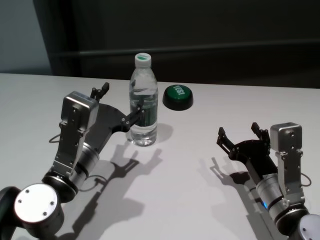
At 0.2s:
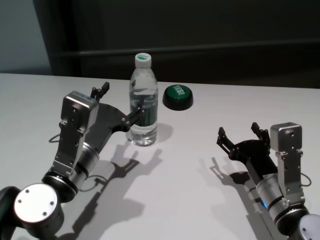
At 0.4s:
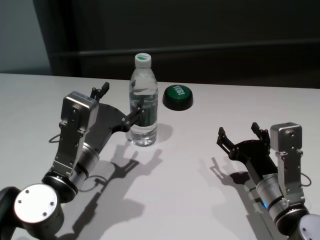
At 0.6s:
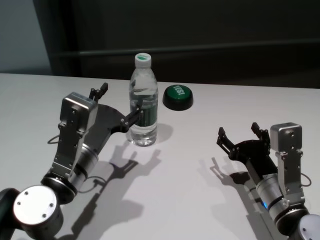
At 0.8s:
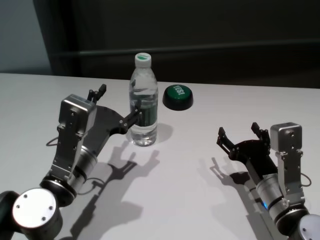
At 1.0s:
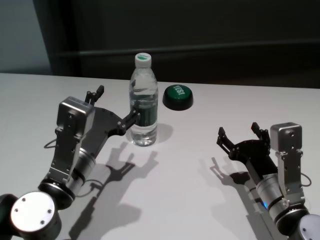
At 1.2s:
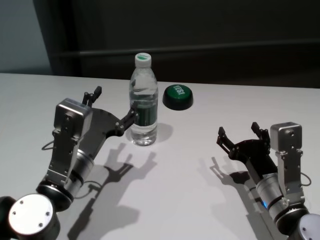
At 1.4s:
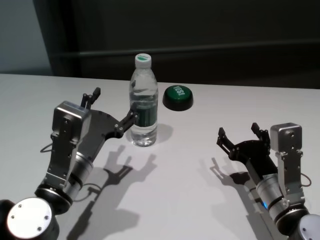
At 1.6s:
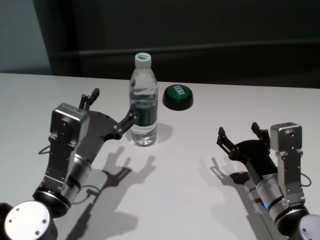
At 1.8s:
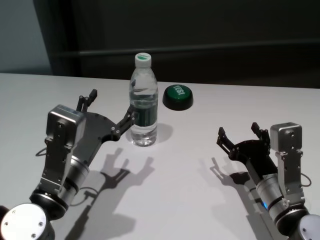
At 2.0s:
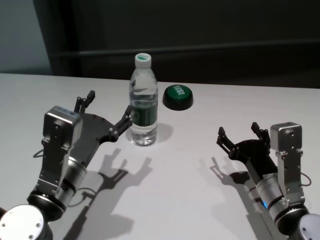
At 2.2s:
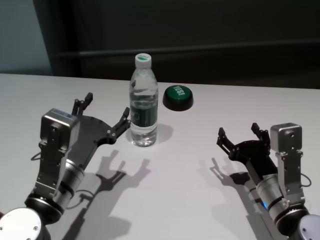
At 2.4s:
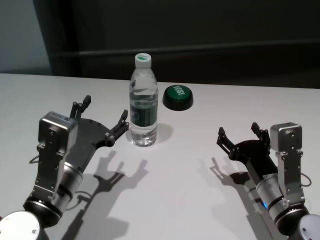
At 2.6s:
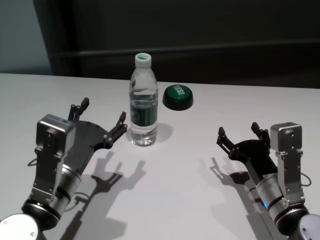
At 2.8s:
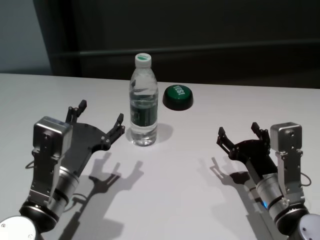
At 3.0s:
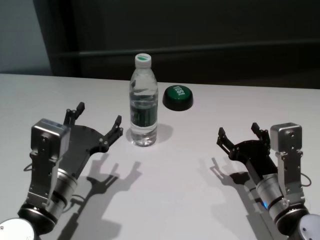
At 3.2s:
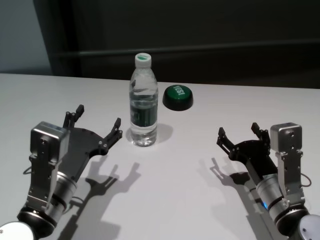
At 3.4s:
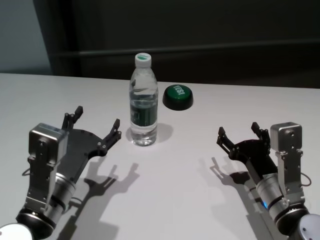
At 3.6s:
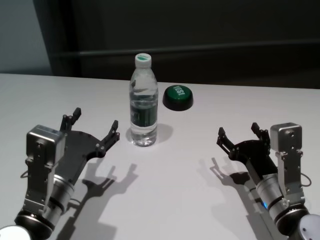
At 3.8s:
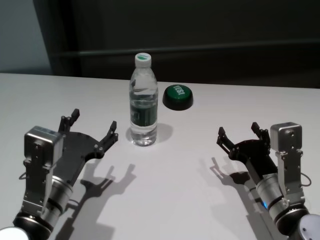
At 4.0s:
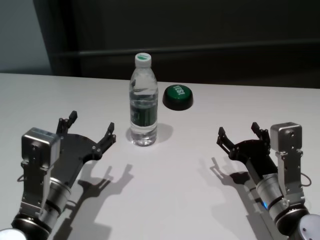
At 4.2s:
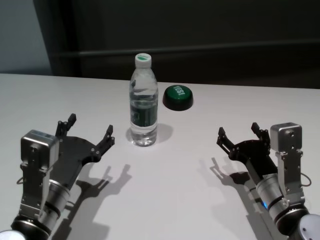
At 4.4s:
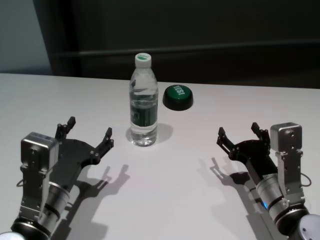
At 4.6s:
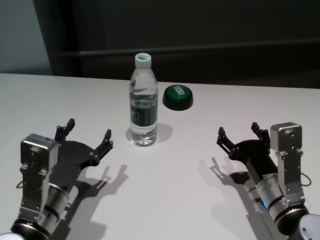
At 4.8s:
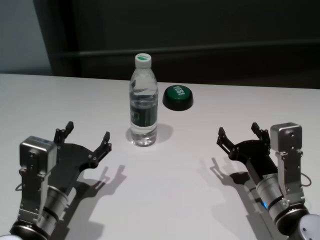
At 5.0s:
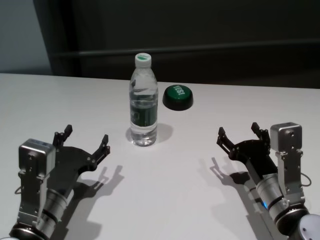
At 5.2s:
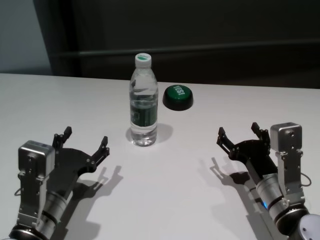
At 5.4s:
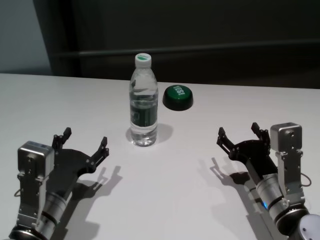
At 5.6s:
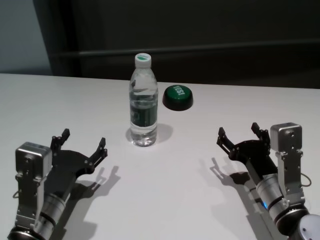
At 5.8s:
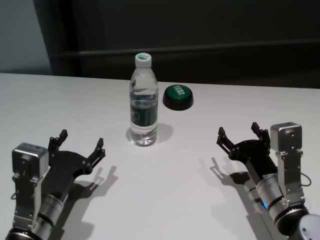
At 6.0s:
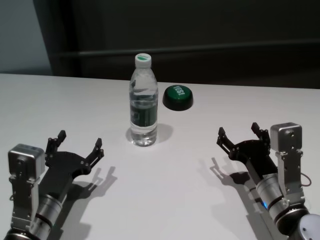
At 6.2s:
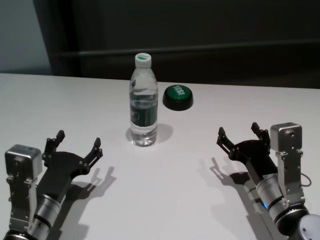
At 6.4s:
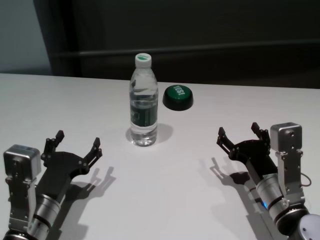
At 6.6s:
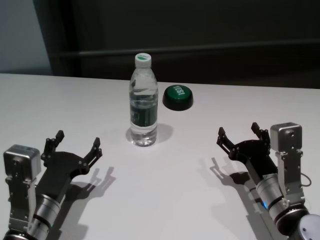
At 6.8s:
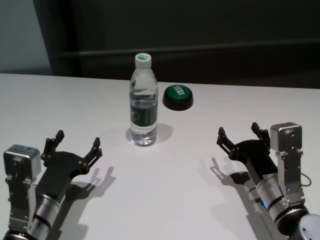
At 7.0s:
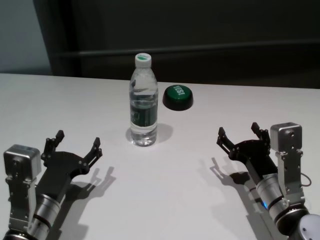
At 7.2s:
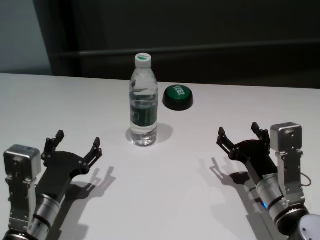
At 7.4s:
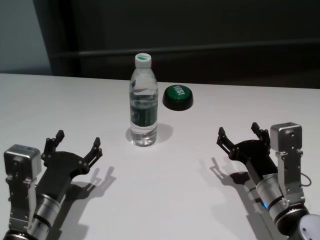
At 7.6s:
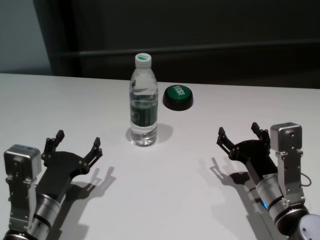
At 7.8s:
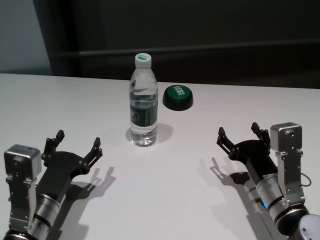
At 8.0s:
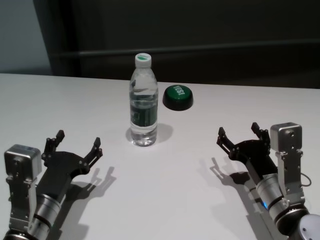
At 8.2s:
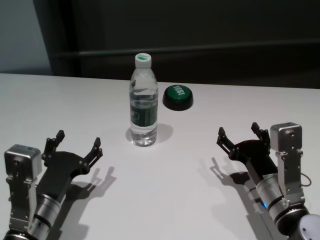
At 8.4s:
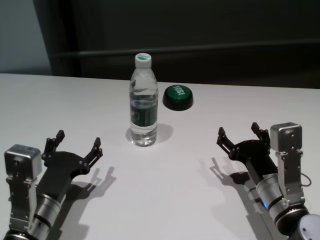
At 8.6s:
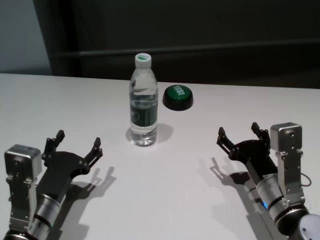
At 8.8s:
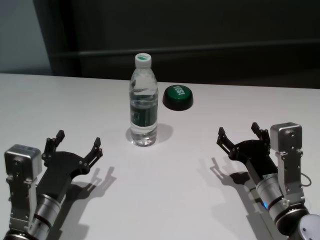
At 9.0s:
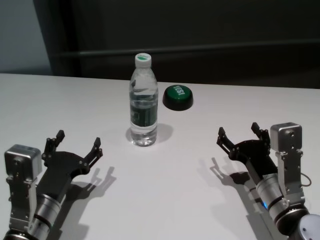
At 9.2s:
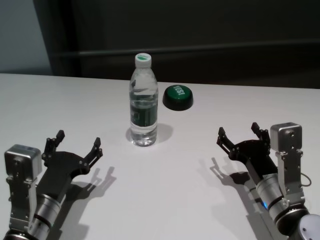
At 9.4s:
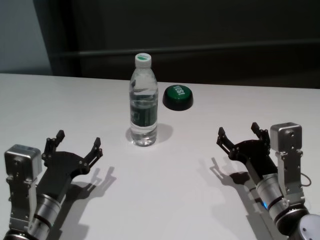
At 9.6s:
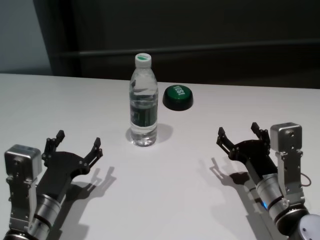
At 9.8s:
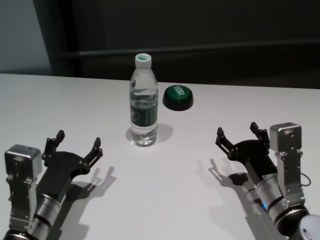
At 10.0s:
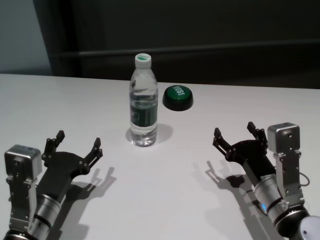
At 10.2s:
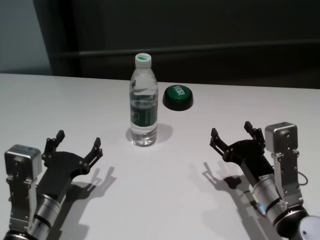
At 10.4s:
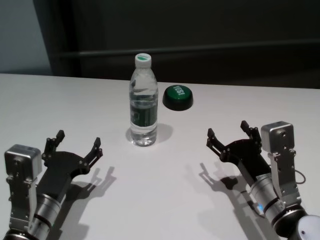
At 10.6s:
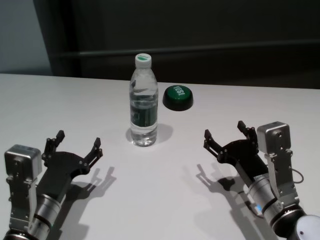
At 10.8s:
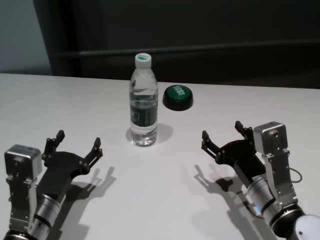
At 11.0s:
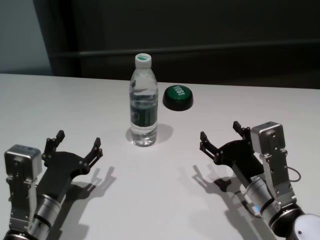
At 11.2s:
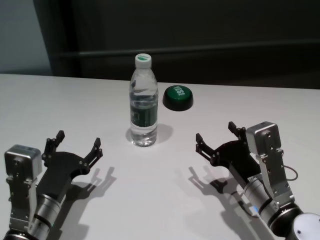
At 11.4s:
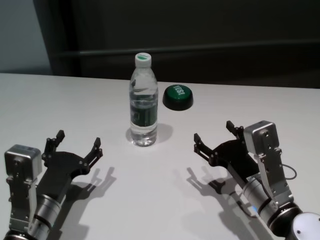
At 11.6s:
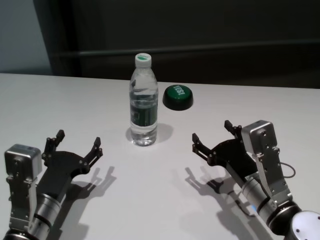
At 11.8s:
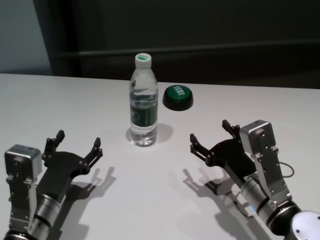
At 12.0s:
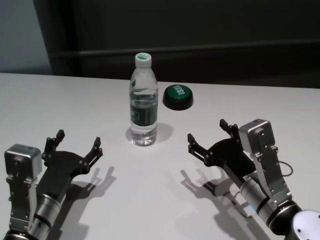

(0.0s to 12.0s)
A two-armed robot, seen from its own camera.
Task of the whole recording: return to a safe position after touching an obstacle with your arm on the white table.
Step, 0.0s - 2.2s: Touch the bottle with left gripper.

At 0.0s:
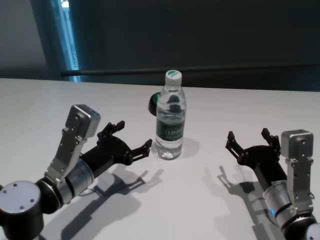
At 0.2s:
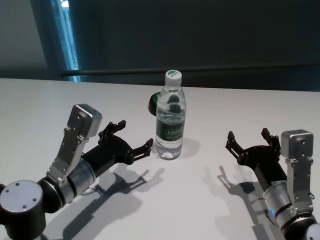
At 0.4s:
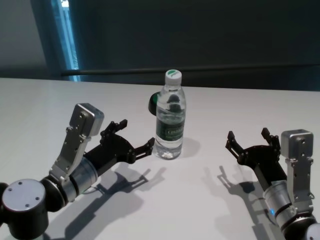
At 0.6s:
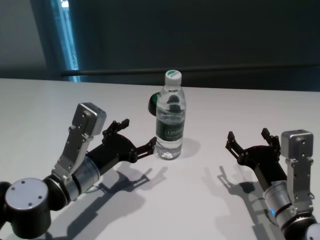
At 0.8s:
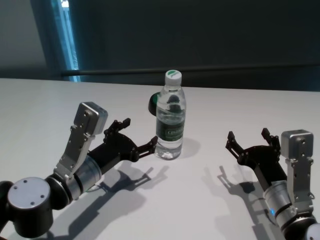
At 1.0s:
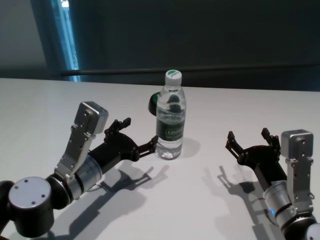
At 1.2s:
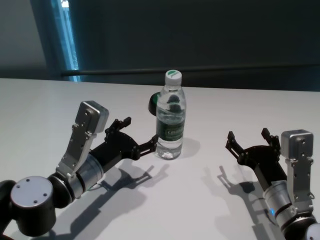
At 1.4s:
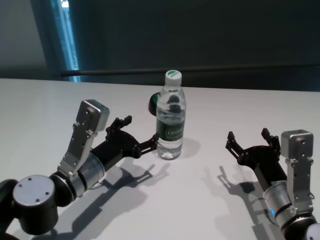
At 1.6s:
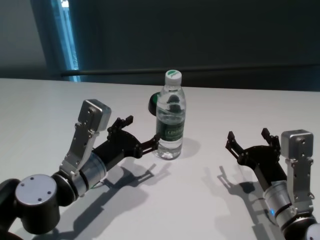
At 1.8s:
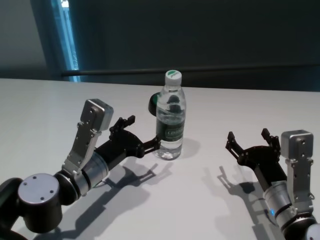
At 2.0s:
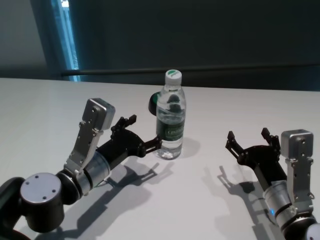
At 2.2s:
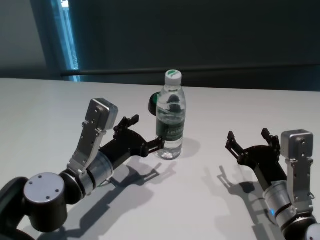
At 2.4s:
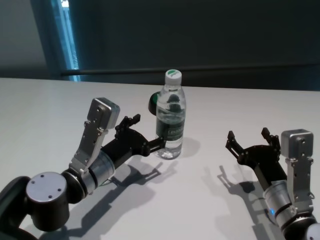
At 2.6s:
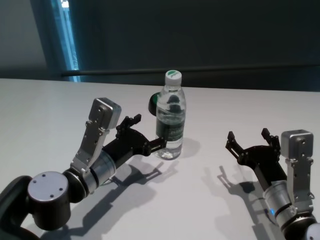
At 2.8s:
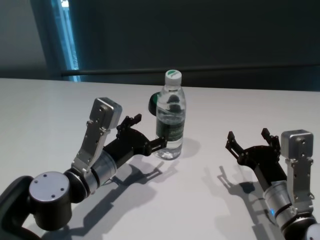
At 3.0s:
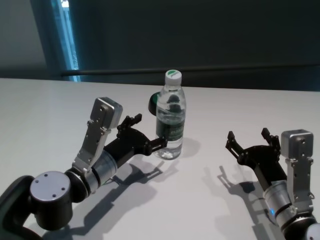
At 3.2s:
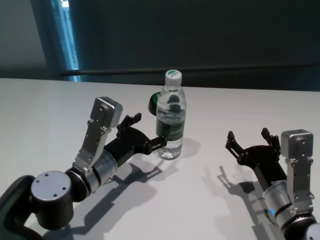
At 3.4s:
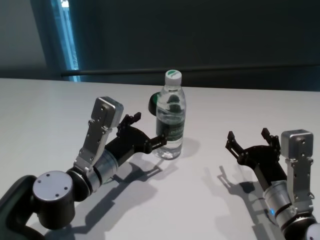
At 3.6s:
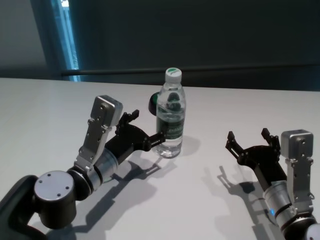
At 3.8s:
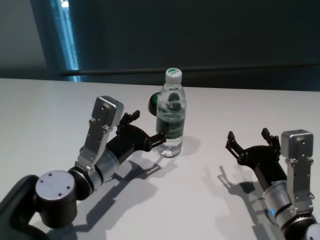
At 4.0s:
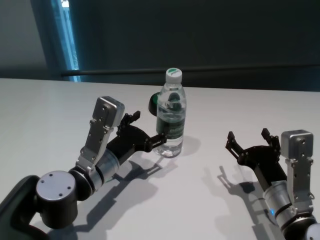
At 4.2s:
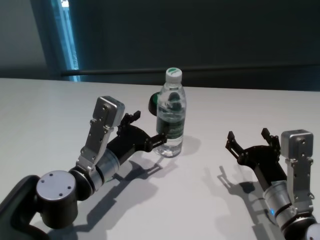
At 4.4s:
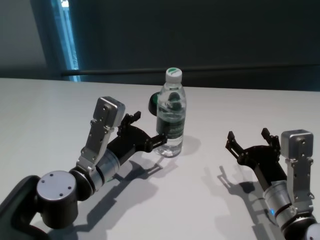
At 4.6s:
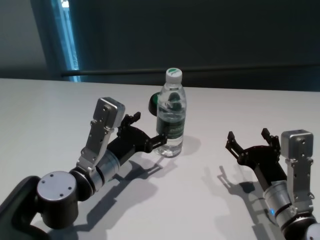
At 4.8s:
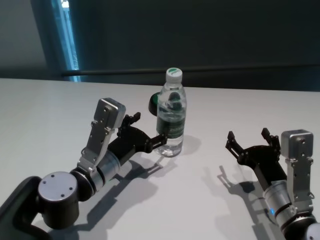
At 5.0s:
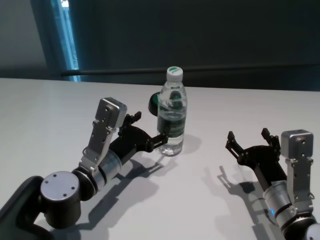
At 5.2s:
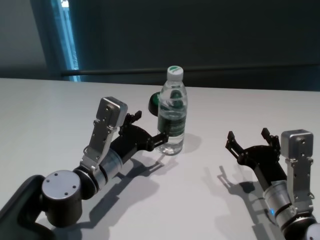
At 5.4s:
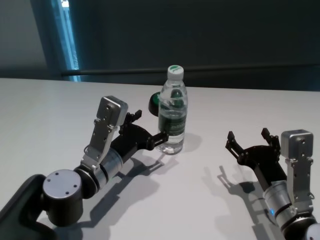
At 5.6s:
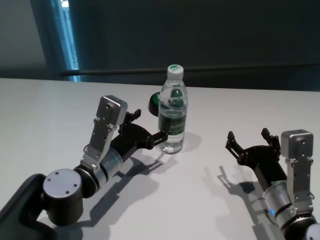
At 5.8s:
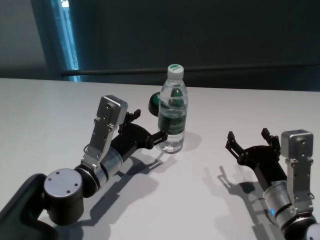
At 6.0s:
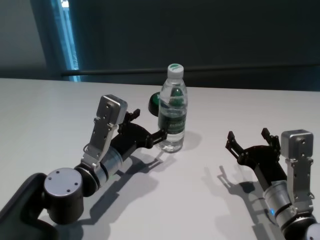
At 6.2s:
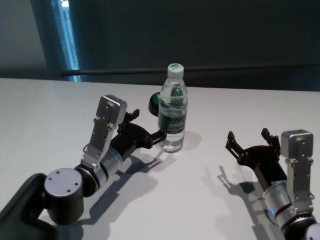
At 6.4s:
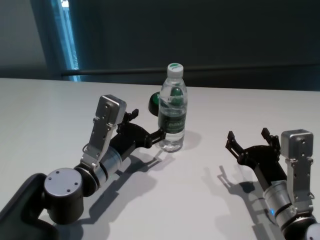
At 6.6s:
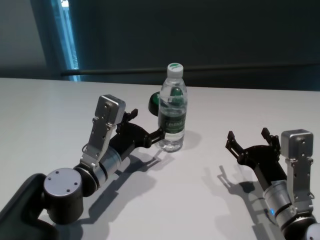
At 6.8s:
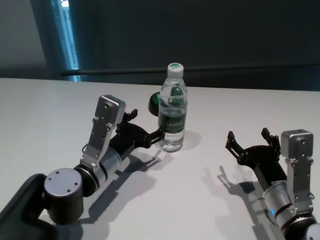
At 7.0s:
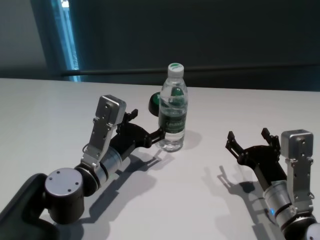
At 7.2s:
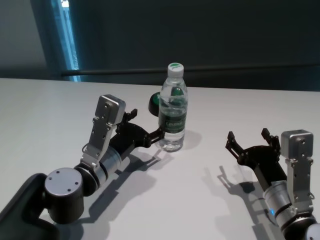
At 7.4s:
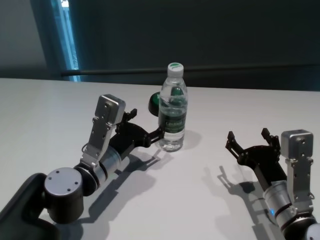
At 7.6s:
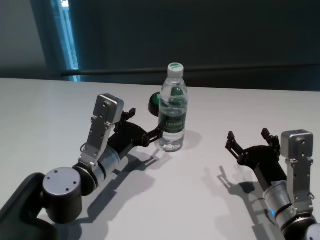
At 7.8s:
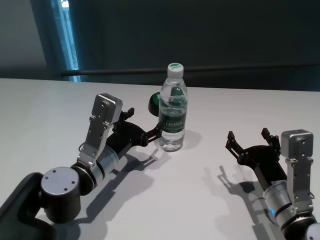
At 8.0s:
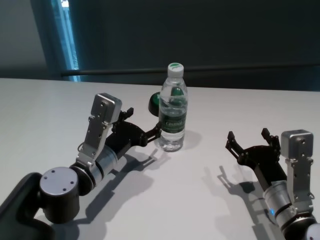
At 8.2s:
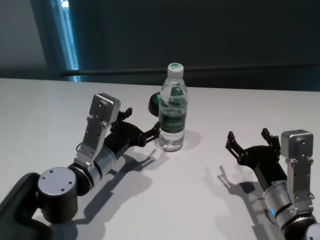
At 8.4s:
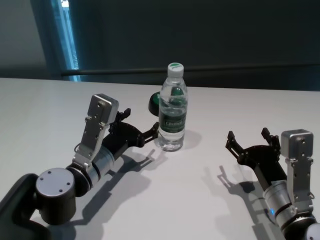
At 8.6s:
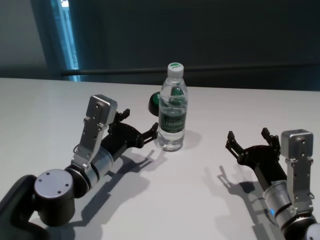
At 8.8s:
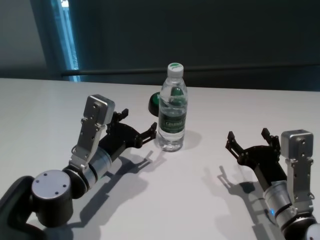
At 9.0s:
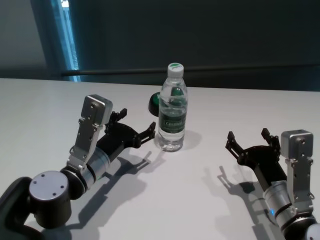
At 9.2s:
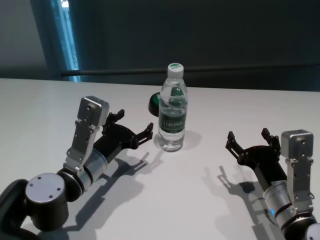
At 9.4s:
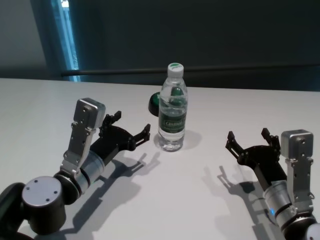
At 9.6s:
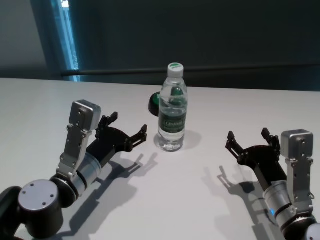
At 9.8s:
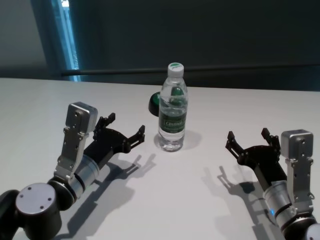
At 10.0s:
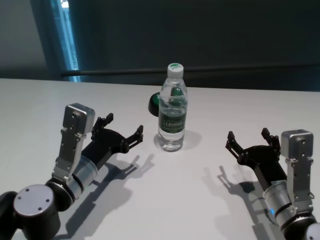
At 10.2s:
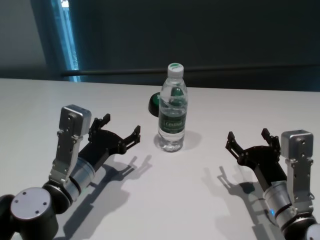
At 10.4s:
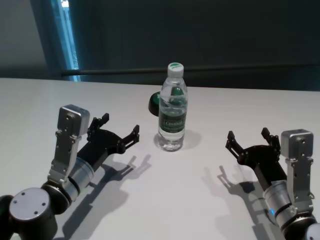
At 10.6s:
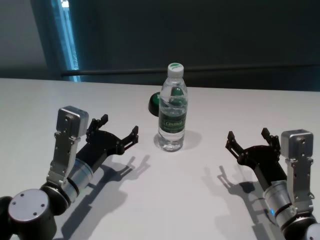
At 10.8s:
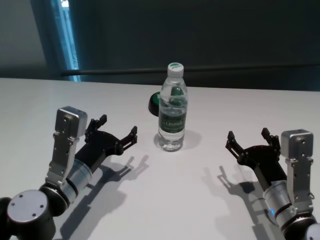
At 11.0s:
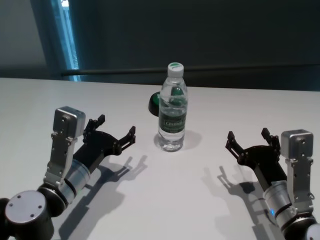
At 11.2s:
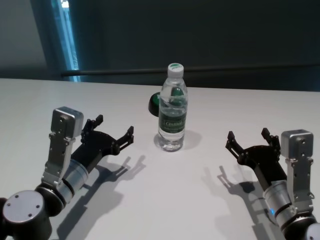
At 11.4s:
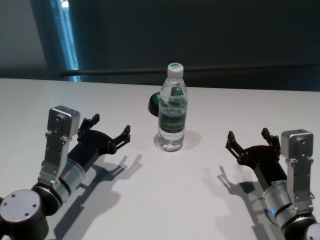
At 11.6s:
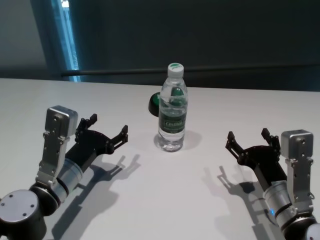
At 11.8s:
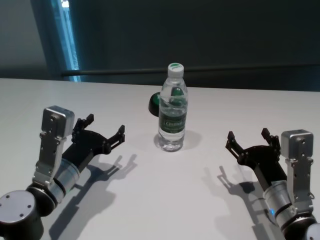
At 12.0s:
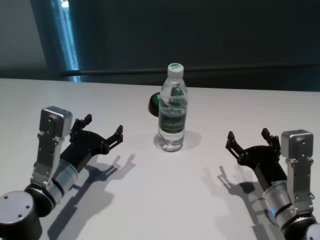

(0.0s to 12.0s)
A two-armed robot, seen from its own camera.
Task of the whole recording: return to a safe position after touching an obstacle with your arm on the white table.
Step, 0.0s - 8.8s: Touch the bottle with left gripper.
